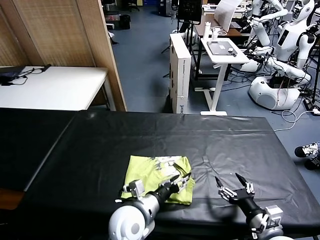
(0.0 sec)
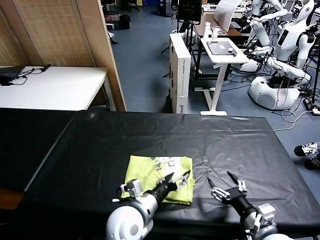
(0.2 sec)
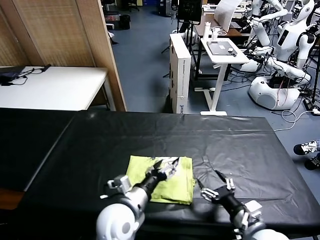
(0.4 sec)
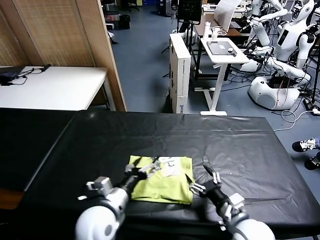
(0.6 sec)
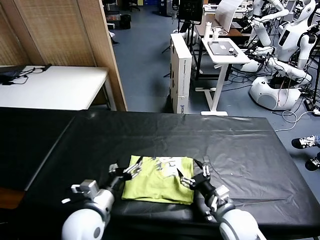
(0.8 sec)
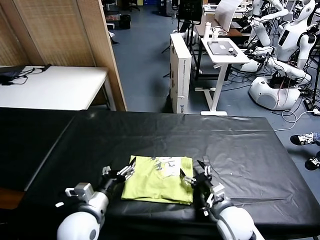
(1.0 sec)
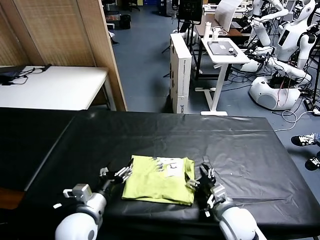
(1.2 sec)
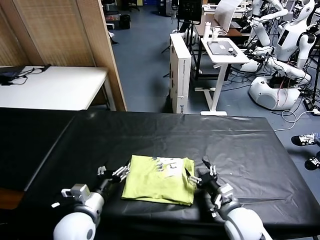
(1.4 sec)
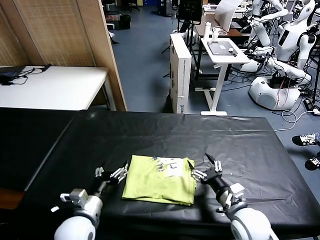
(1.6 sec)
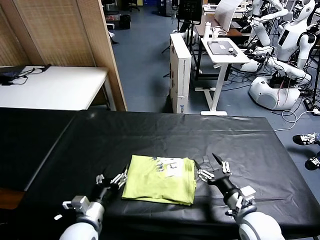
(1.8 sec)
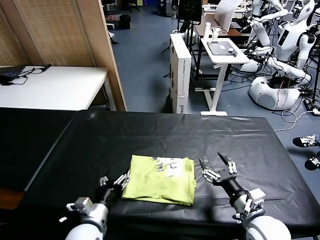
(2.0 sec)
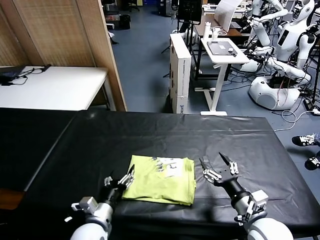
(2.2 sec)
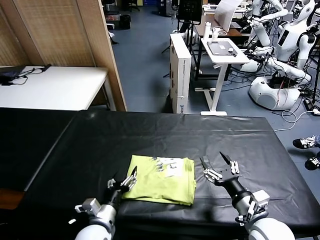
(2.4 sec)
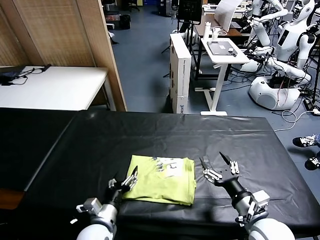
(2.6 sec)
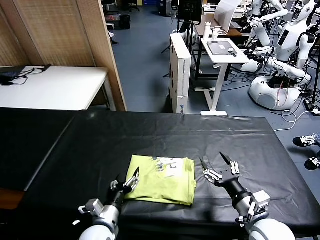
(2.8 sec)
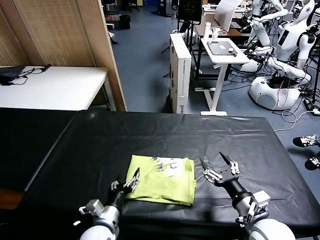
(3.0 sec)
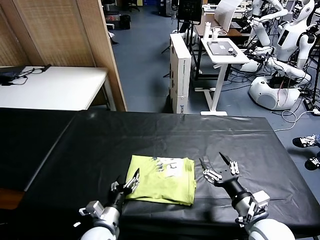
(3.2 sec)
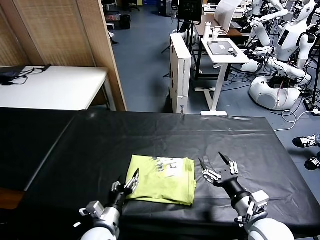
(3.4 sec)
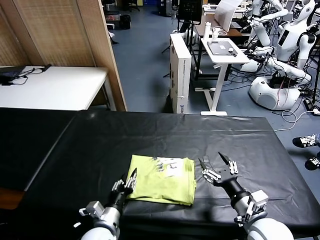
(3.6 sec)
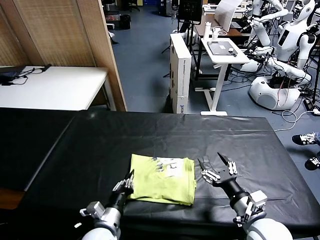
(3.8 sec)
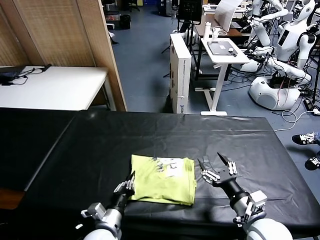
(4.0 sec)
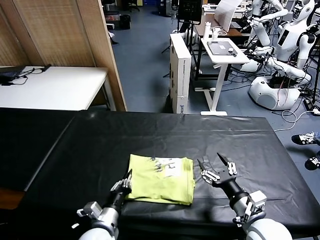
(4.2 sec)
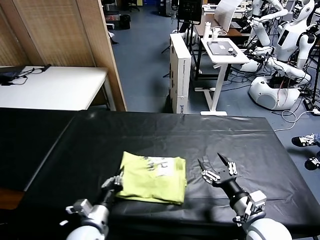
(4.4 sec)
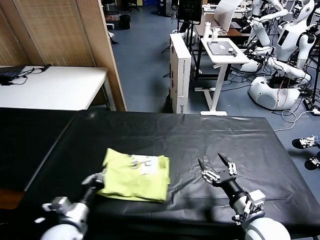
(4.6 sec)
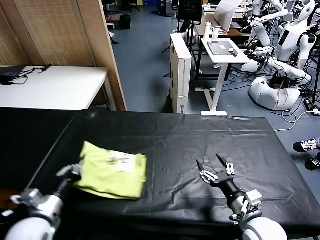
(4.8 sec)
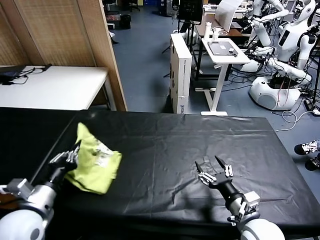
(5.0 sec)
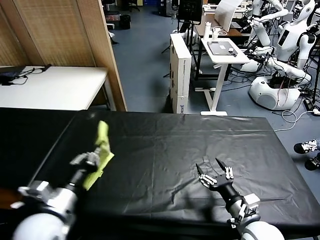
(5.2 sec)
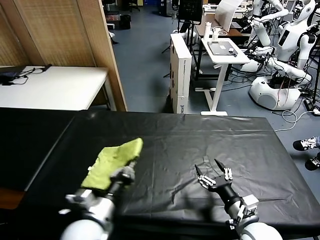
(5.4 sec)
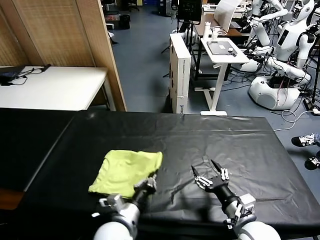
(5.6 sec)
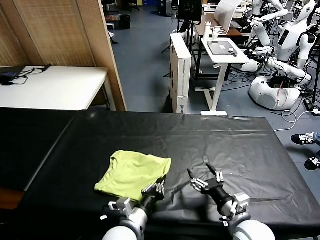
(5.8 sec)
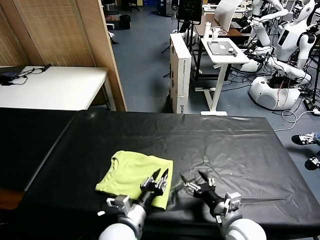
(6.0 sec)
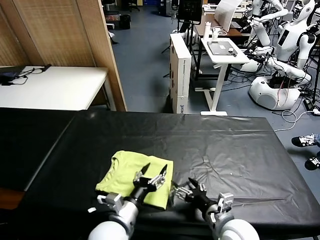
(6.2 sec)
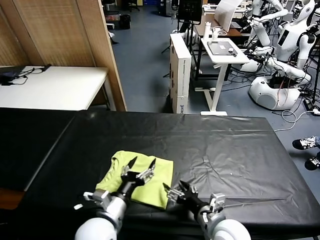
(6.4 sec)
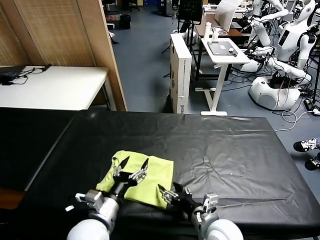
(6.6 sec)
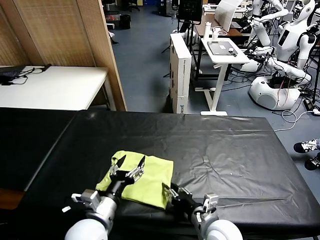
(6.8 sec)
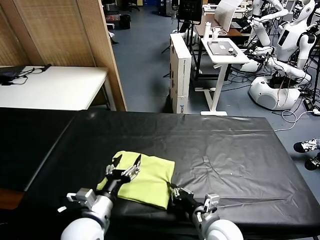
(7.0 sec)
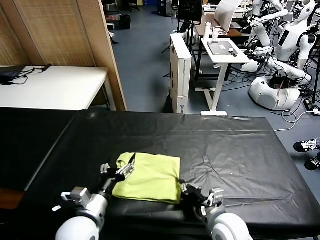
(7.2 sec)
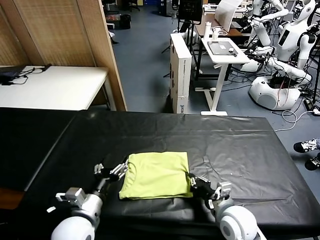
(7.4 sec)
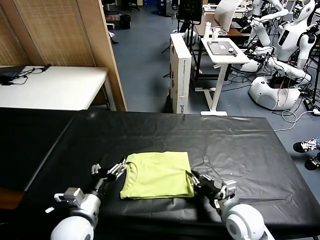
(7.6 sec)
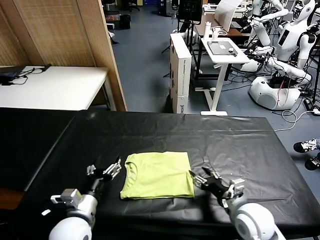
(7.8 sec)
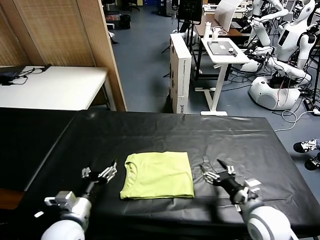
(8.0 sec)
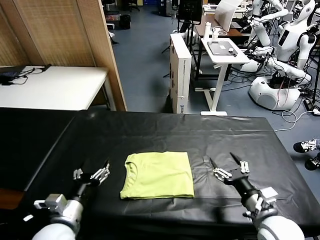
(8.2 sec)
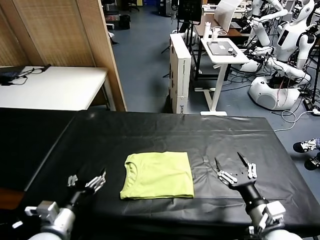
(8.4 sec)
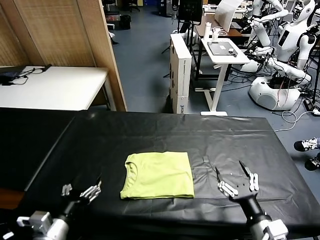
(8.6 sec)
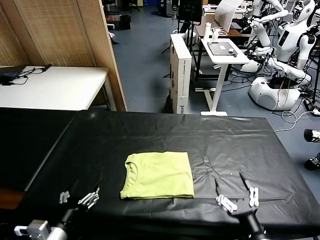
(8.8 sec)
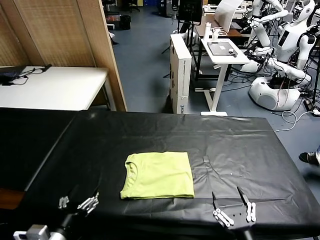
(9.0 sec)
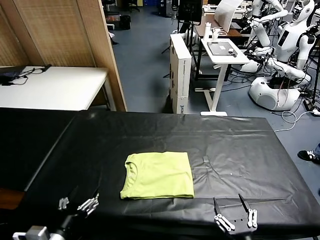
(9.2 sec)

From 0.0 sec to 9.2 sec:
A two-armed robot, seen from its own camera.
Task of the whole recording: fold and organize the clothes.
Step, from 0.2 sec to 6.0 sec: Flip the folded clothes over with left gripper.
Step, from 6.2 sec to 7.6 sec: Drag the clothes to the center of the table.
From 0.0 sec to 1.6 sec: The right gripper moves forward and to the left, roughly 10 cm. The left gripper moves to the left, approximately 15 cm.
From 1.6 sec to 3.0 sec: The right gripper shifts by approximately 5 cm. The left gripper shifts roughly 5 cm downward.
From 3.0 sec to 4.6 sec: The left gripper heads to the left, covering roughly 5 cm, and closes up.
From 4.6 sec to 6.2 sec: The right gripper goes approximately 5 cm to the left. The left gripper heads to the right, covering about 15 cm, and opens up.
From 6.2 sec to 7.6 sec: The right gripper closes its fingers. Meanwhile the left gripper travels to the left by about 10 cm.
From 7.6 sec to 9.2 sec: The left gripper travels backward and to the left by roughly 10 cm, while the right gripper shifts some 20 cm backward, and opens its fingers.
